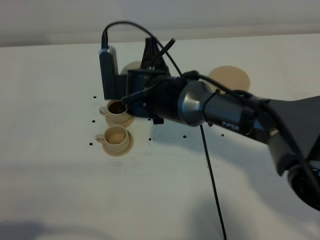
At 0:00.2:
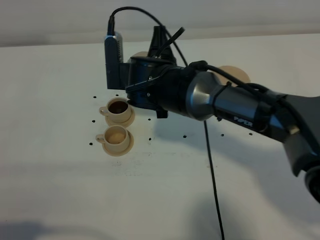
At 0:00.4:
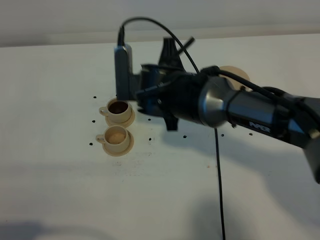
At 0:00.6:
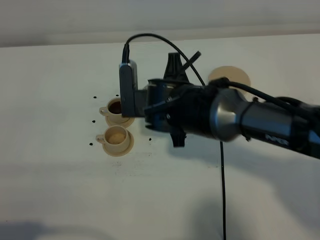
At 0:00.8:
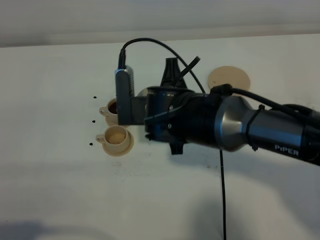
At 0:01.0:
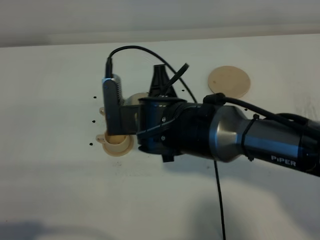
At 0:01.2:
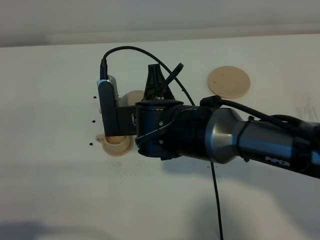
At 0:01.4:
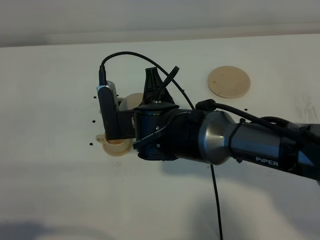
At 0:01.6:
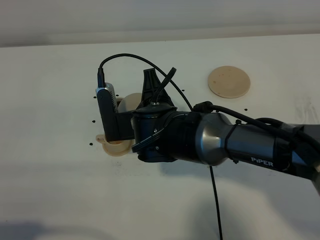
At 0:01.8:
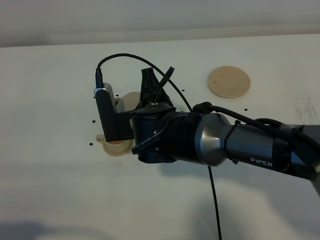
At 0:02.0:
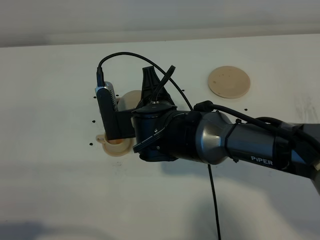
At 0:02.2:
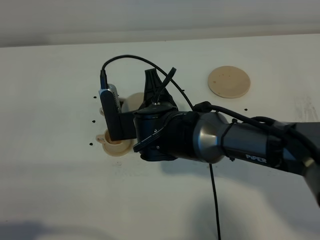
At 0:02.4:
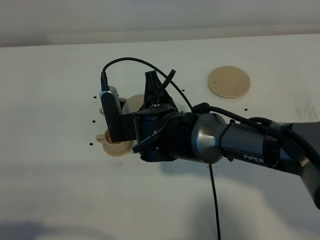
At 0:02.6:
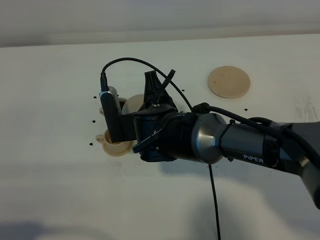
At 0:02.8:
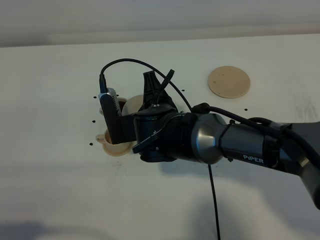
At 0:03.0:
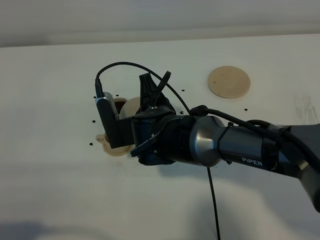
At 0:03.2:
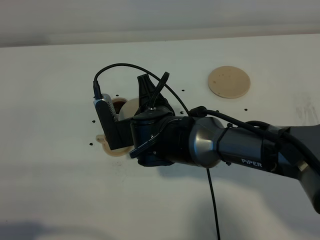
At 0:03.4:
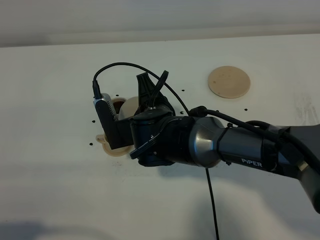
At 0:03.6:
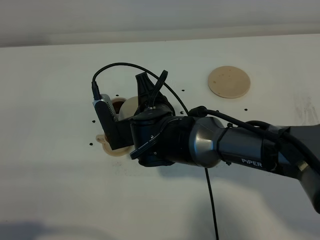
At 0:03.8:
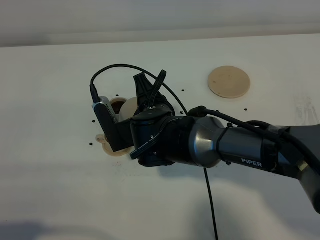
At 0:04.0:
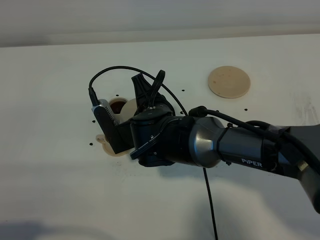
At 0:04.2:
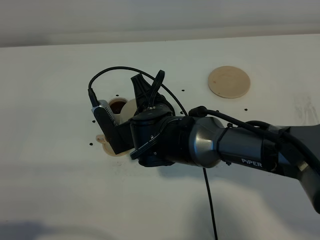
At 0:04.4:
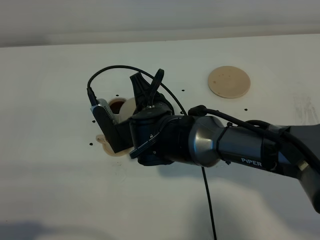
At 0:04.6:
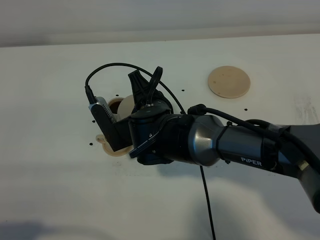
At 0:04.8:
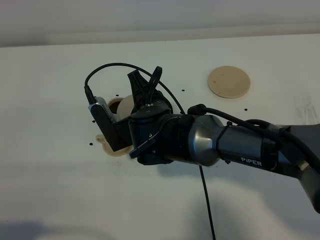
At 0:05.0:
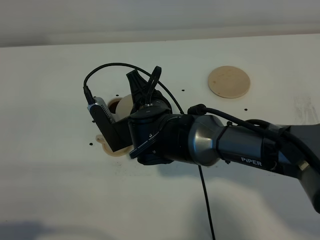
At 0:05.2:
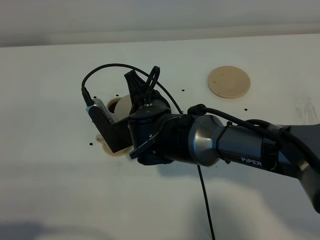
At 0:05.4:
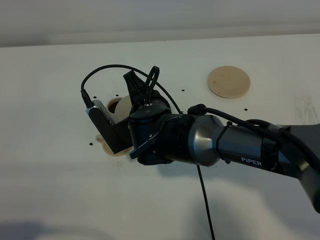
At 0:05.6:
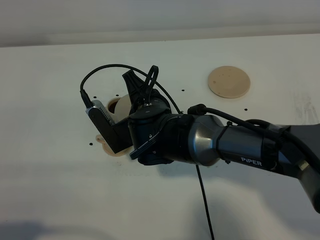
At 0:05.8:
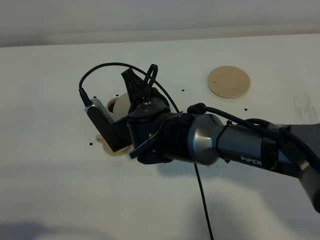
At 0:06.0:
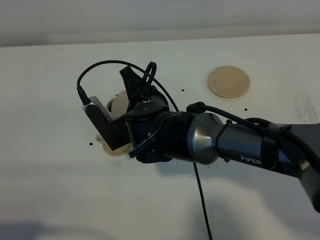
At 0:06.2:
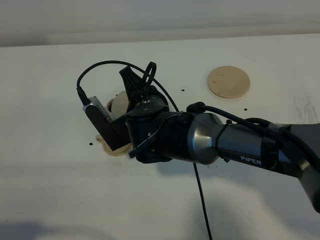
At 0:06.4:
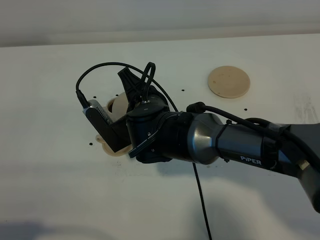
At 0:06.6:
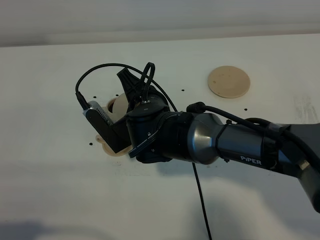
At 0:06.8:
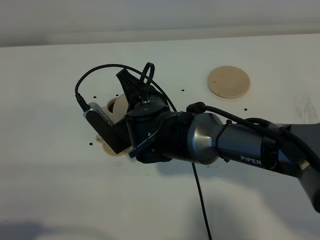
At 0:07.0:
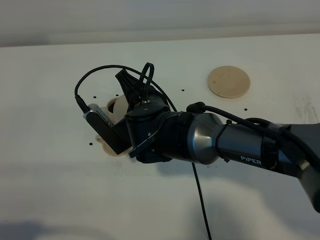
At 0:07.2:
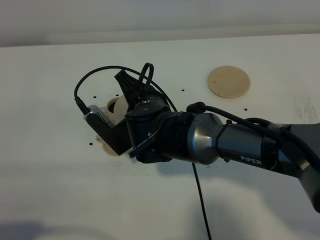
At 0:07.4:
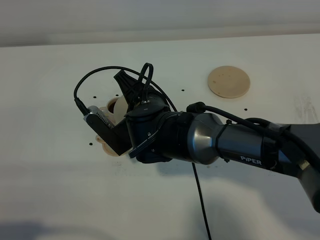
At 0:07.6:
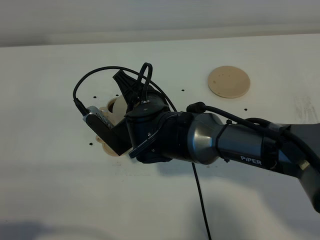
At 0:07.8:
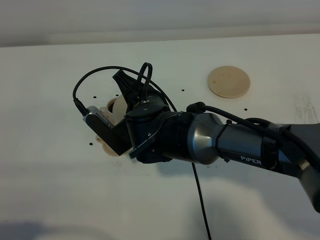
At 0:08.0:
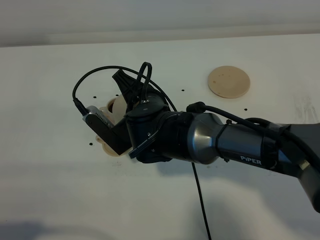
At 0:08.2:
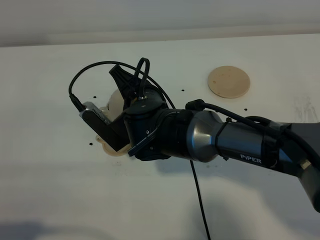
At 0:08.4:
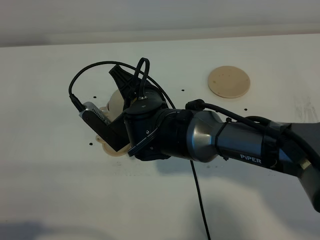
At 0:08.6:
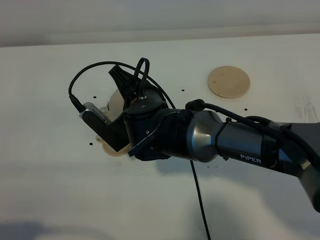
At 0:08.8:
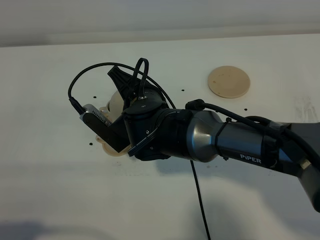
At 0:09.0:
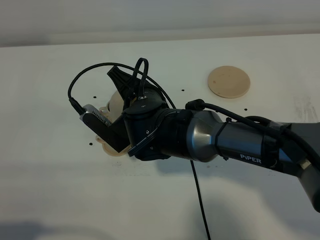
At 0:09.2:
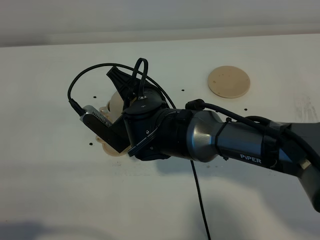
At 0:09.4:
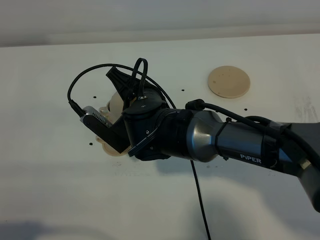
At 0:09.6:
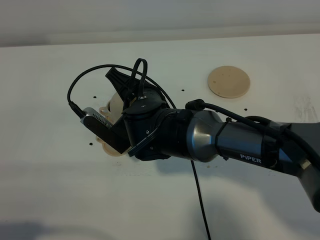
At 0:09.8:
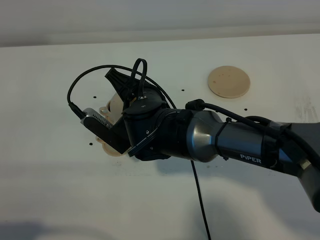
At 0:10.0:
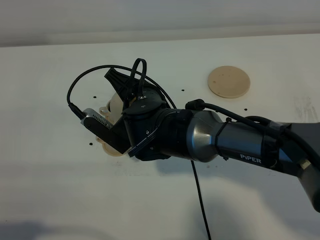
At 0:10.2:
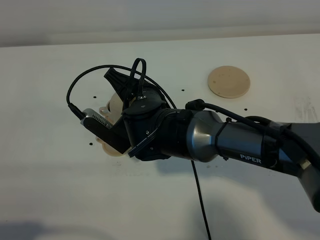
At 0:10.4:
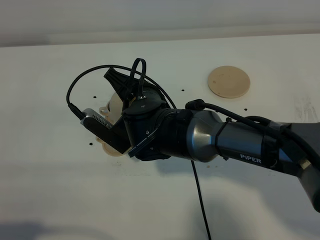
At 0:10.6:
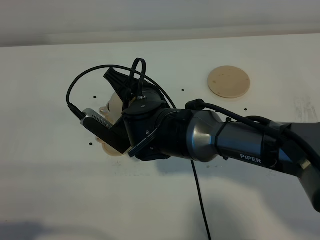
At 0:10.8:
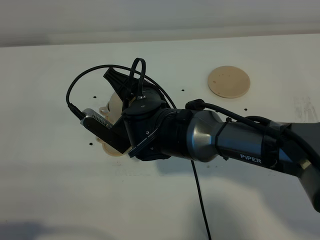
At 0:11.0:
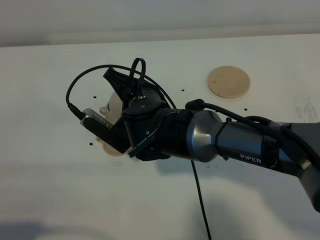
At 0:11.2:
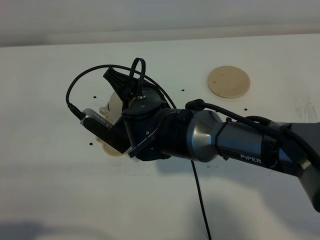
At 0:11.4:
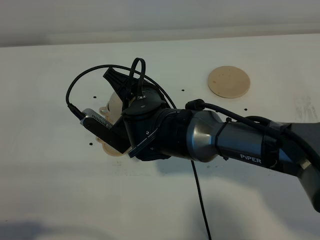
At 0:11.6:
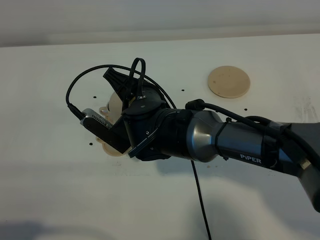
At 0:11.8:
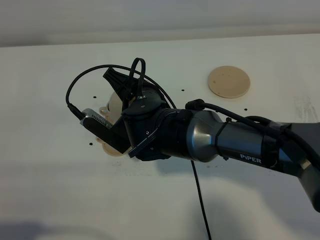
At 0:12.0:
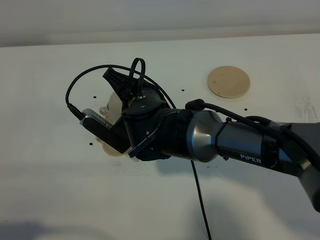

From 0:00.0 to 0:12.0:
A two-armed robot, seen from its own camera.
Task of the whole recording: grasp the brown teapot and pour the tea into the two brown teacups one by one, put the brown teapot back in its original place.
From 0:00.0 to 0:01.6: The right gripper is displaced backward by some 5 cm.
From 0:01.6 to 0:04.4: The grippers move only a little.
From 0:04.4 to 0:07.6: There are only small adjustments of the grippers.
From 0:07.6 to 0:09.0: Both grippers stay about where they are.
From 0:09.0 to 0:10.4: Both grippers stay about where they are.
From 0:10.4 to 0:12.0: Both grippers stay put.

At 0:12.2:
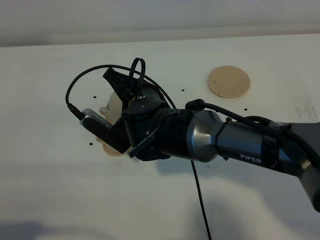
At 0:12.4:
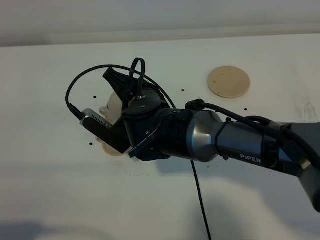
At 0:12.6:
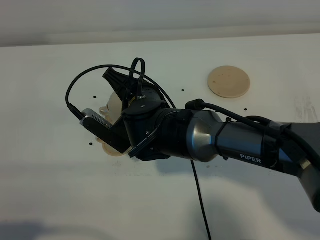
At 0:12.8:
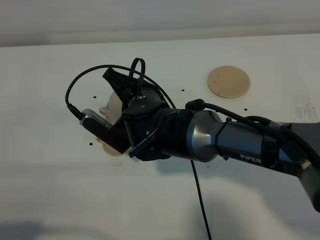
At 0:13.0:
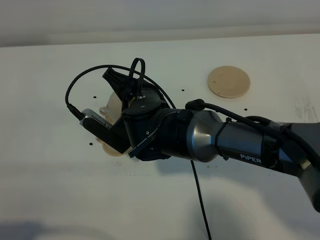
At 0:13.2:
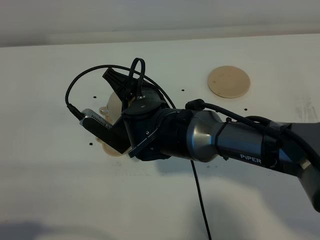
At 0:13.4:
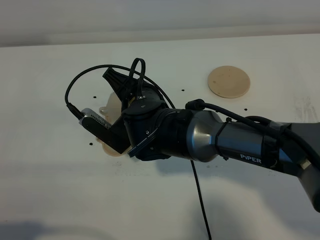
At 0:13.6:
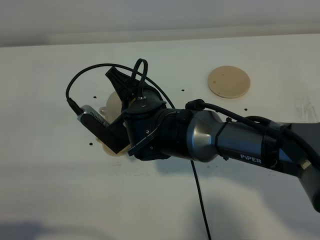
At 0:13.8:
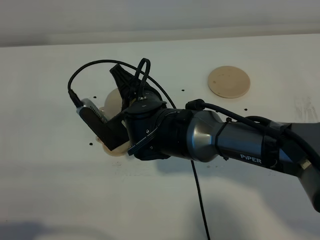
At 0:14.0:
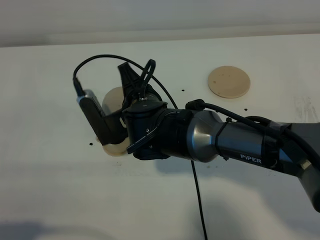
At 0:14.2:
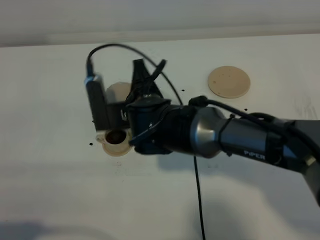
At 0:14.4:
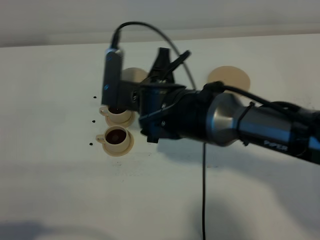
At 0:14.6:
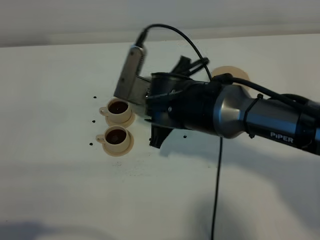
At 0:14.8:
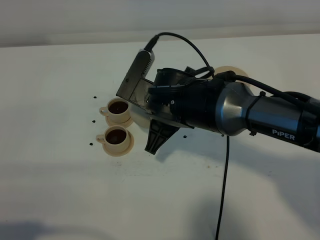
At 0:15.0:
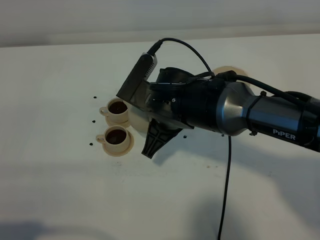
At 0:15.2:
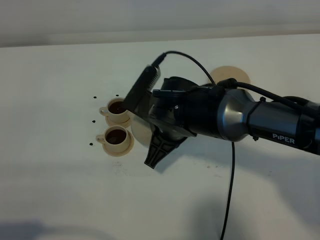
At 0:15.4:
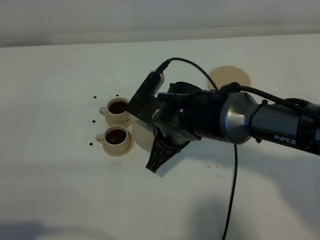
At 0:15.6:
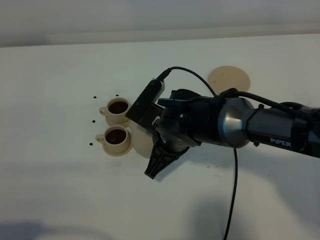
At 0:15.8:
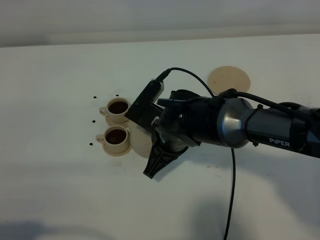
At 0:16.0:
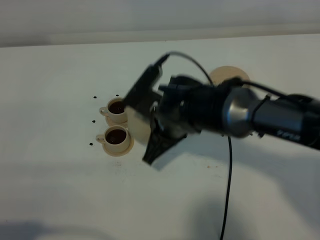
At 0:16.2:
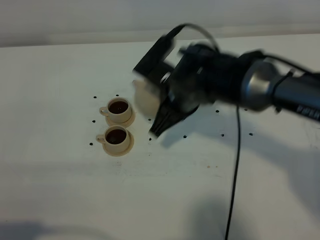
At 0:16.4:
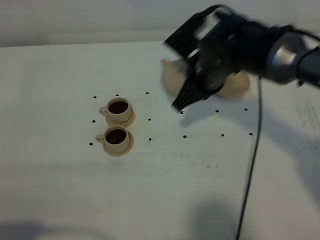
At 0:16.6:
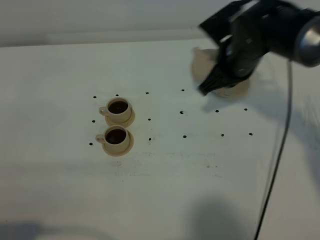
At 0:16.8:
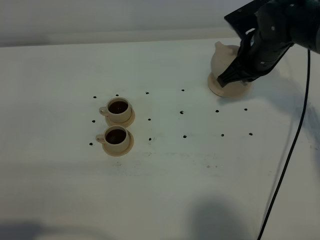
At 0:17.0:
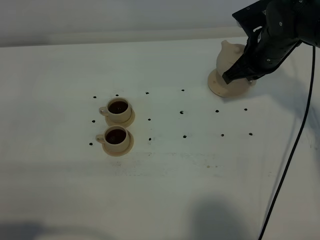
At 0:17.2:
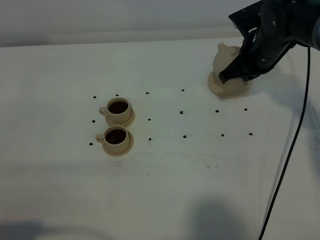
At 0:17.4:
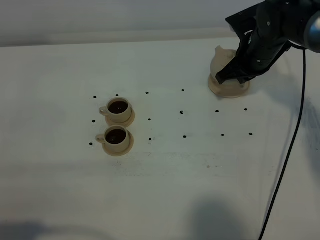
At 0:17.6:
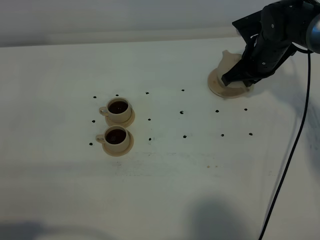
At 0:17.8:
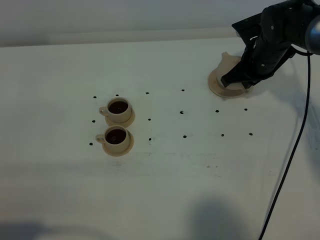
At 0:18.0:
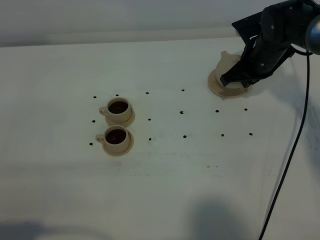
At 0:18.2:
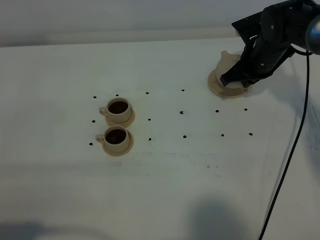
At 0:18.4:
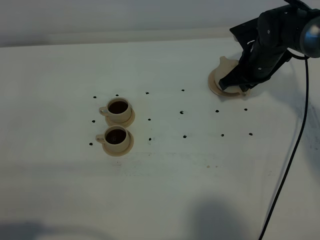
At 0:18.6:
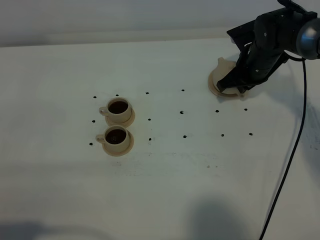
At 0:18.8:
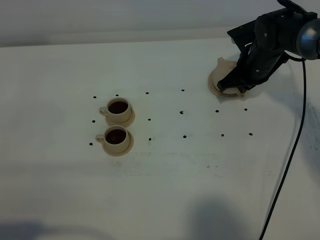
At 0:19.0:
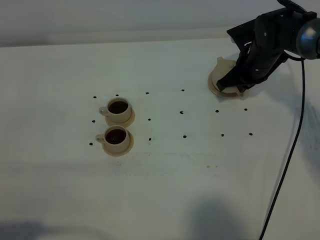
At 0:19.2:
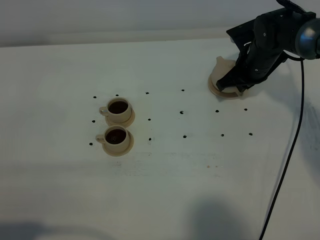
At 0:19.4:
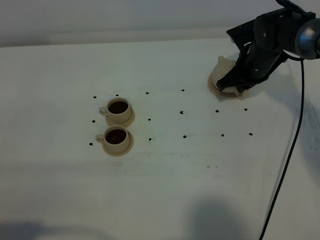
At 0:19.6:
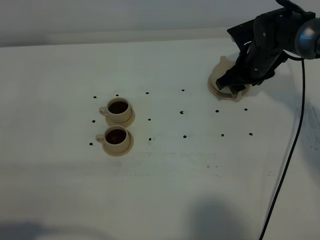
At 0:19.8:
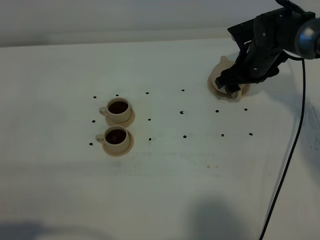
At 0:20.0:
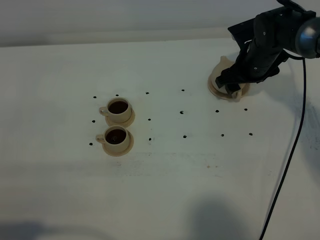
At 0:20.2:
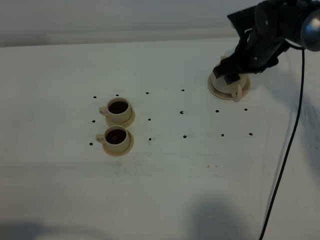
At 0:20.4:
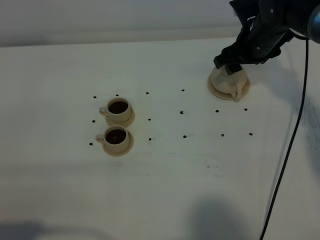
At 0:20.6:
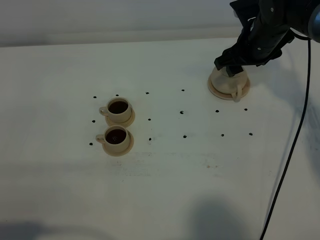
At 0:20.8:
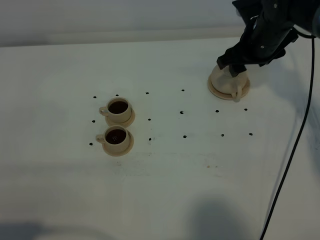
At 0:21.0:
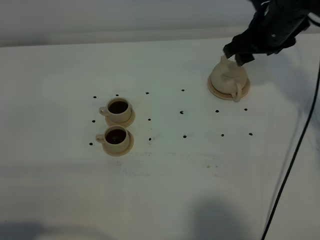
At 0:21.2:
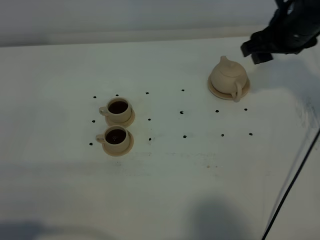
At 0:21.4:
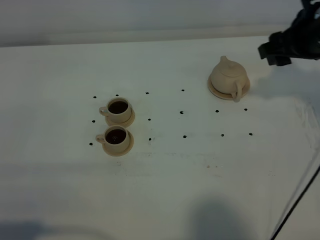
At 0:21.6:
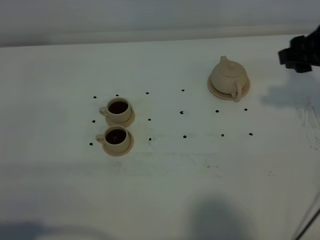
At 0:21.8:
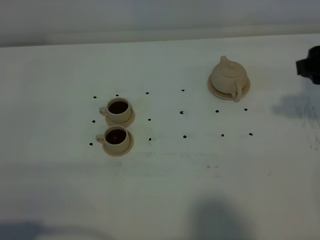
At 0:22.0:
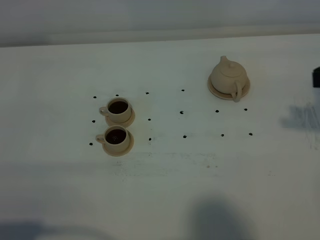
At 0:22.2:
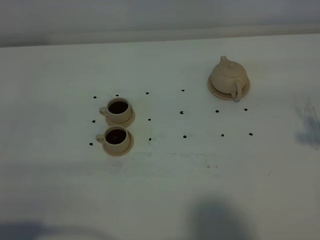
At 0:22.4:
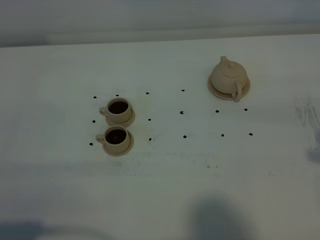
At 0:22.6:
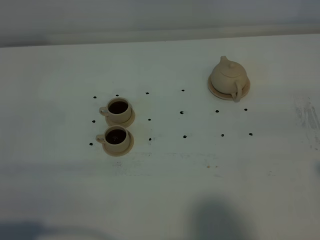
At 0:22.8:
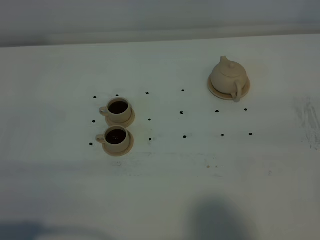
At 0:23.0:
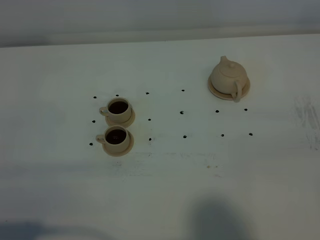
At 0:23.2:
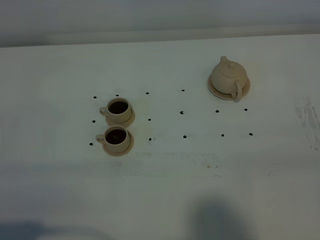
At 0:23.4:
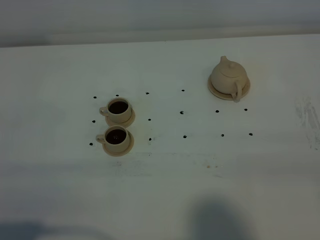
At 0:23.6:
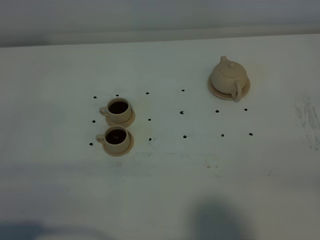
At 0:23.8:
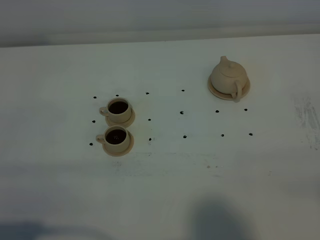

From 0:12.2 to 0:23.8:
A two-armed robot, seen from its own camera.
Task of the whole recording: grasp the brown teapot and pour the tea into the two brown teacups one by one, put the brown teapot back in its original place.
From 0:12.2 to 0:13.6: The grippers move only a little.
From 0:15.0 to 0:16.6: The right gripper goes some 15 cm to the right and forward.
From 0:16.6 to 0:18.0: The right gripper is displaced forward by roughly 5 cm.
From 0:18.0 to 0:19.4: The grippers move only a little.
From 0:19.4 to 0:21.0: The right gripper shifts some 10 cm upward, and opens.
From 0:21.0 to 0:22.4: The right gripper heads backward and to the right, covering approximately 30 cm.
